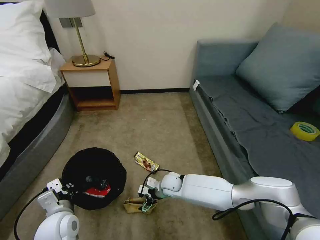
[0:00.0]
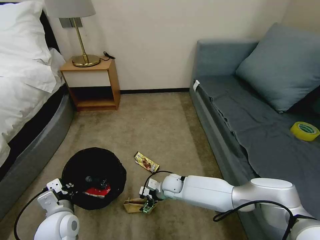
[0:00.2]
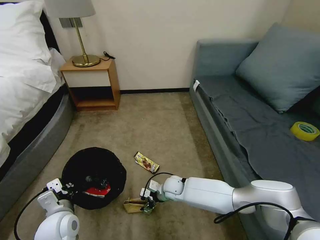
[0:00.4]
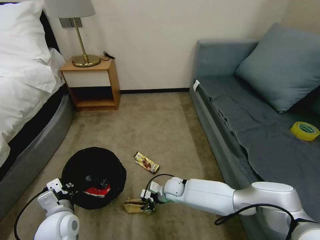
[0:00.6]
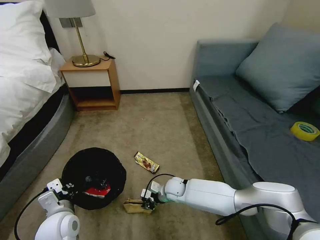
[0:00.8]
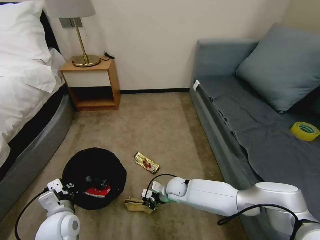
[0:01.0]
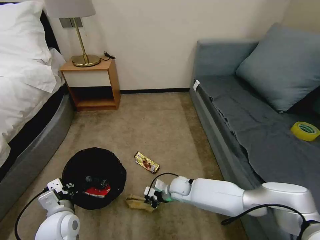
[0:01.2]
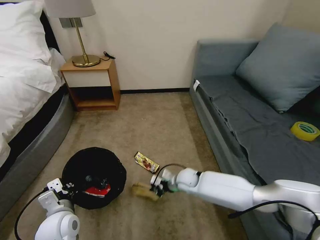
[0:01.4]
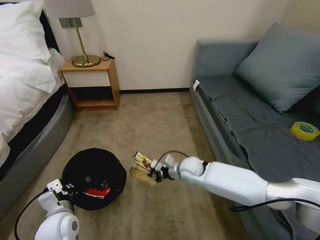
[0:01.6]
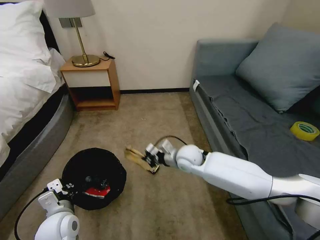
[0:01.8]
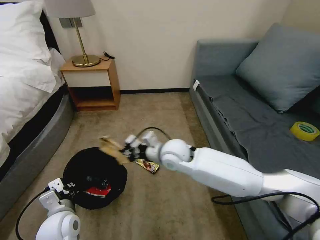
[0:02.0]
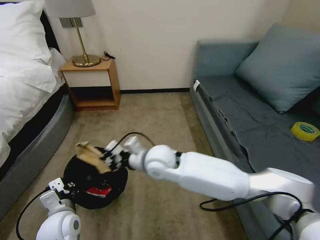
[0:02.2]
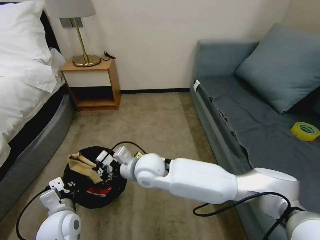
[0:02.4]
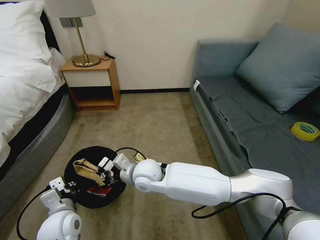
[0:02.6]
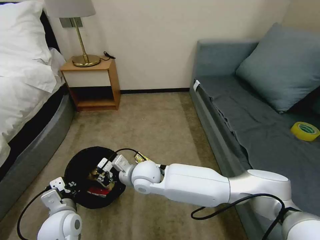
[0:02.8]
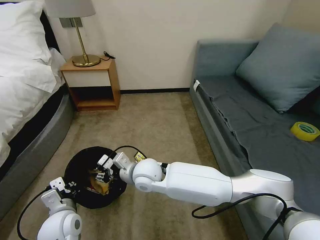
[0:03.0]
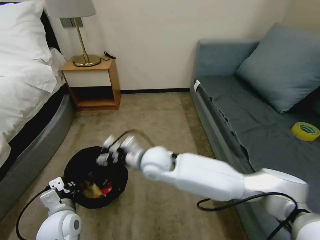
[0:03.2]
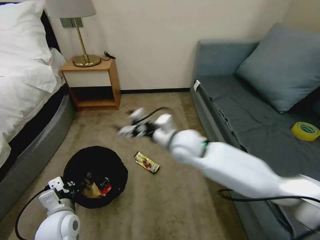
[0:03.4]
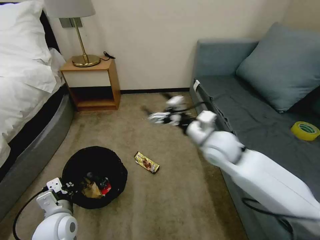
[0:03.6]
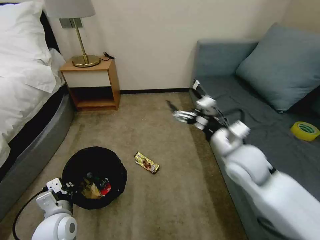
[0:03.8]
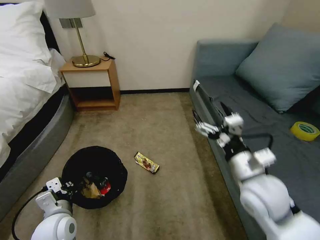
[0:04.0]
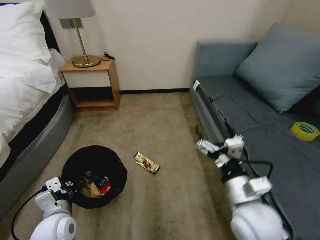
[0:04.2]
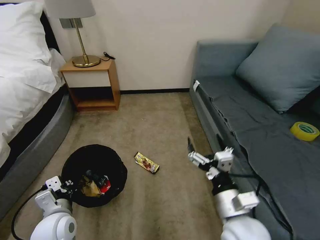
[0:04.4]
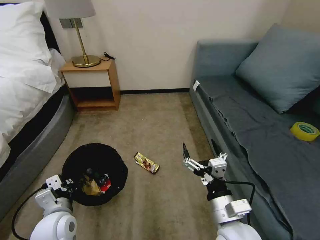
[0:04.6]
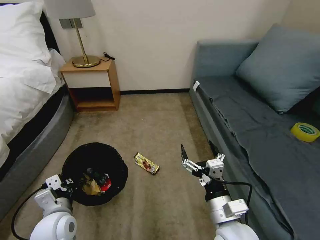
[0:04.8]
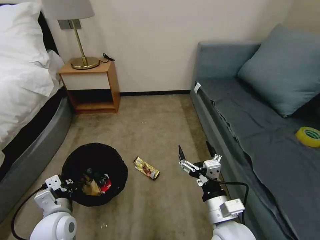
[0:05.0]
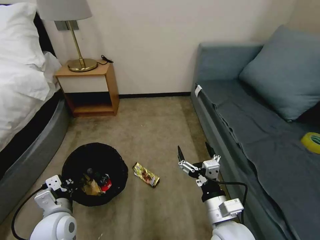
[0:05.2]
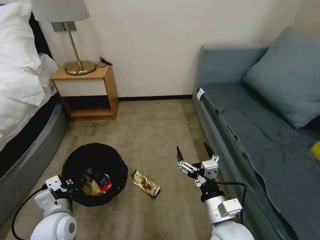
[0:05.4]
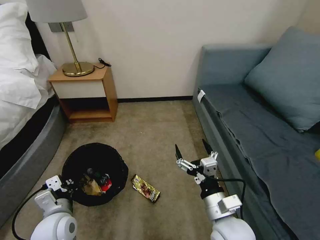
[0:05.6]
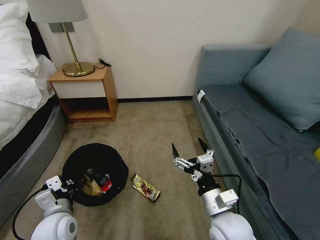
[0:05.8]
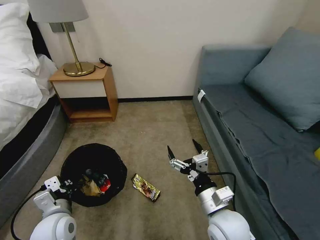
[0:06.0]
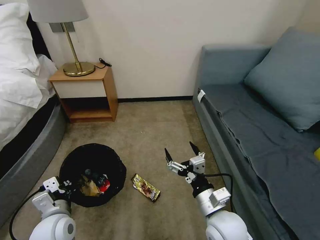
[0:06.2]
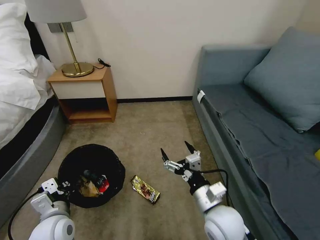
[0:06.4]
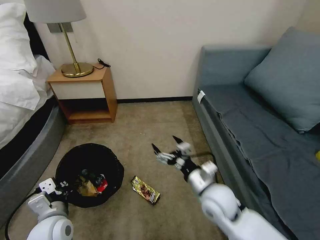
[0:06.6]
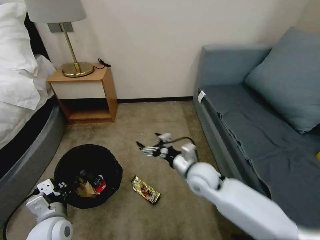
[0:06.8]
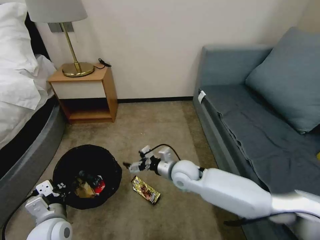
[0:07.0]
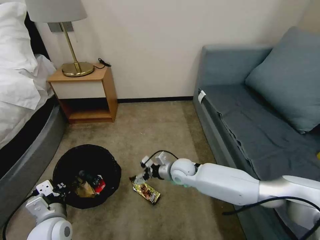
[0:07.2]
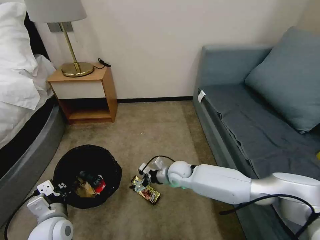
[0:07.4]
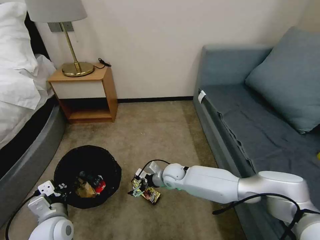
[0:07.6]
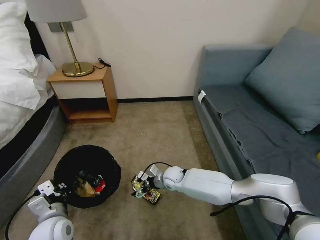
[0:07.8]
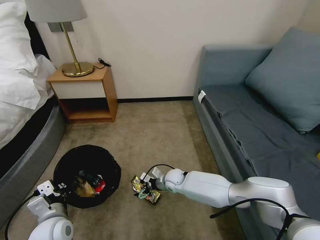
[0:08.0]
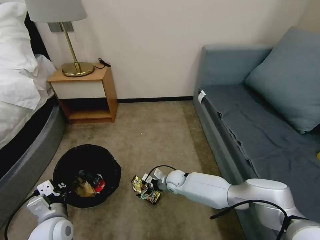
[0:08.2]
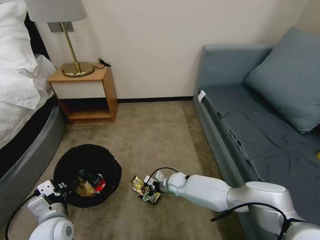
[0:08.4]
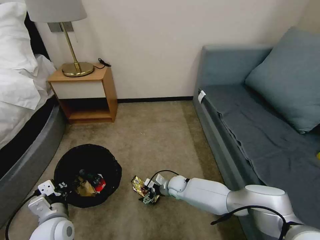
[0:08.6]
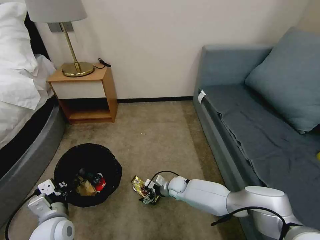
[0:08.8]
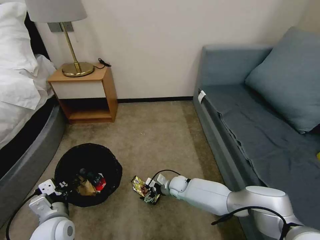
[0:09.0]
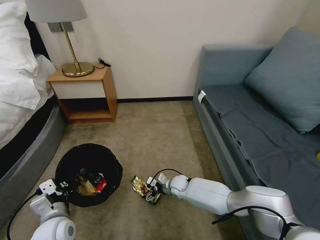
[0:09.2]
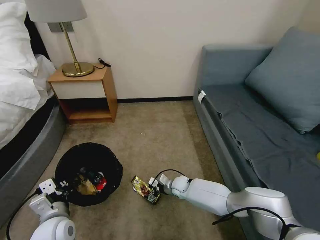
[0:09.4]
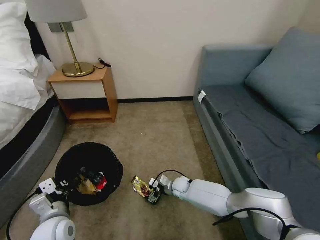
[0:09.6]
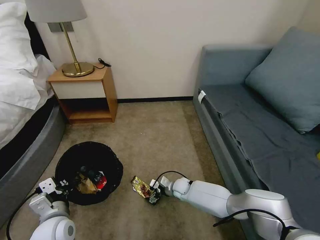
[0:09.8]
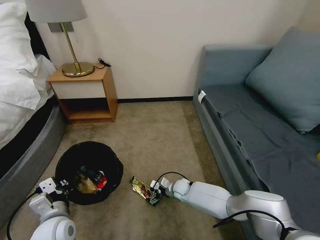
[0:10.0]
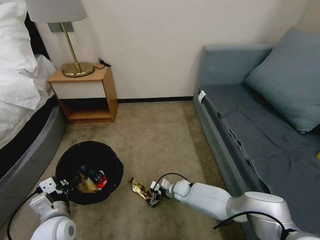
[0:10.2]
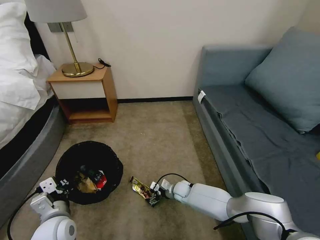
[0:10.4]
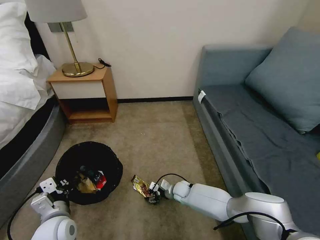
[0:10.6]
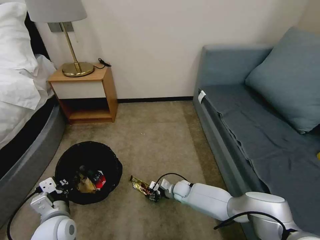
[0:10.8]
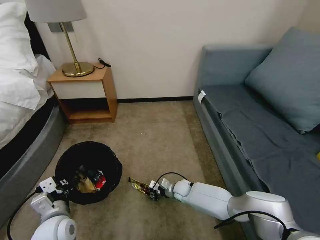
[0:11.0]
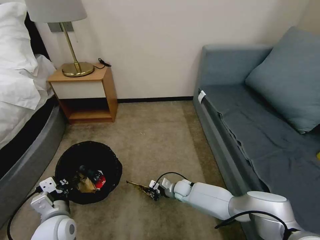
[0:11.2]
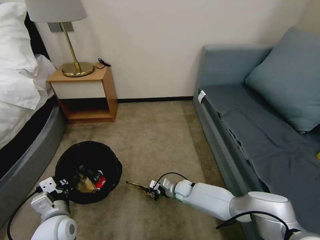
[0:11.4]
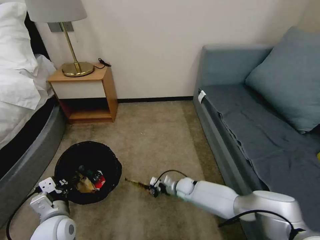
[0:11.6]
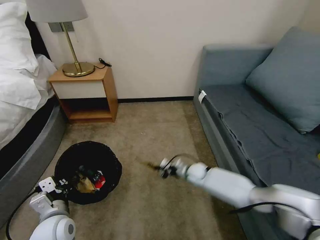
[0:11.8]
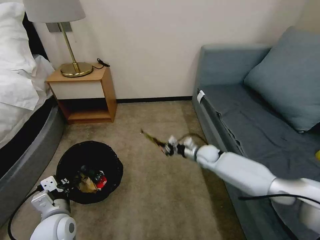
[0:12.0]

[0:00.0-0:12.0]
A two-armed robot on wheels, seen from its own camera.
Task of the whole recording: Pick up the trash bin, then pick up the garbage on the floor and place it into the trash bin.
0:00.0 to 0:01.6: The right gripper goes about 10 cm to the right and upward, and closes.
0:01.6 to 0:03.0: The right gripper moves to the left, upward and backward, roughly 20 cm, and opens its fingers.
0:03.0 to 0:04.4: The right gripper goes about 30 cm to the right and backward, and opens its fingers.
0:06.0 to 0:07.6: The right gripper shifts approximately 30 cm forward, downward and to the left.
0:07.6 to 0:09.0: The right gripper moves downward, some 10 cm.
0:09.0 to 0:10.4: There are only small adjustments of the grippers.
0:10.4 to 0:12.0: The right gripper goes some 20 cm upward, to the right and forward, and closes its fingers.

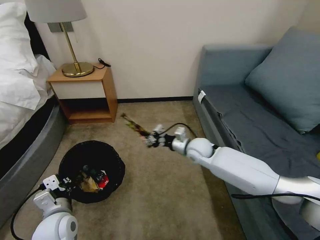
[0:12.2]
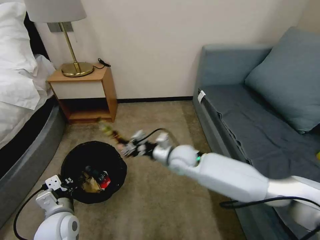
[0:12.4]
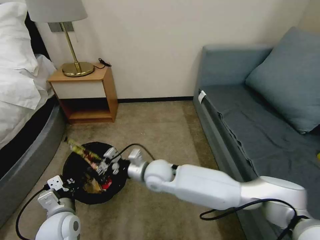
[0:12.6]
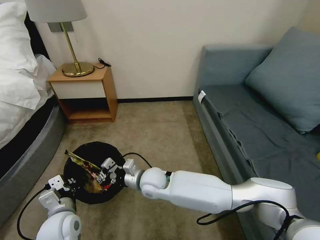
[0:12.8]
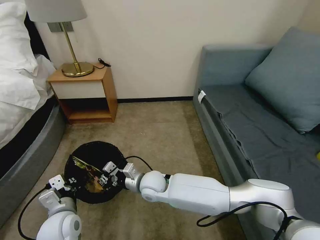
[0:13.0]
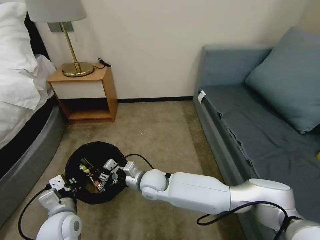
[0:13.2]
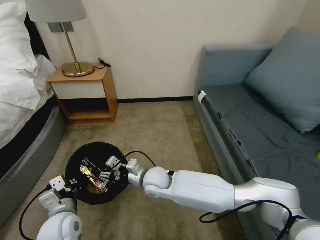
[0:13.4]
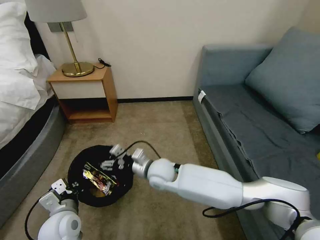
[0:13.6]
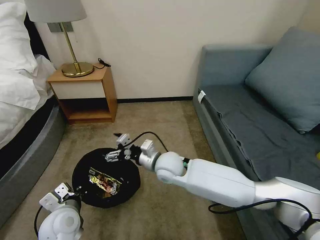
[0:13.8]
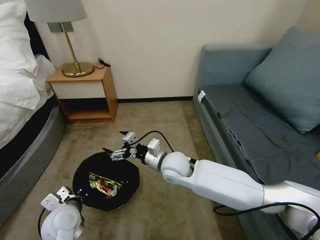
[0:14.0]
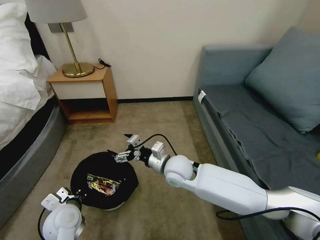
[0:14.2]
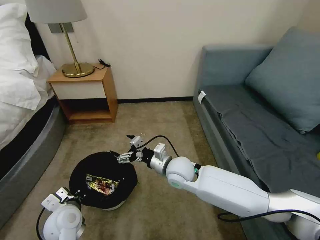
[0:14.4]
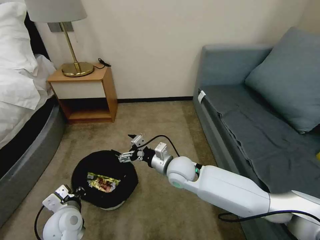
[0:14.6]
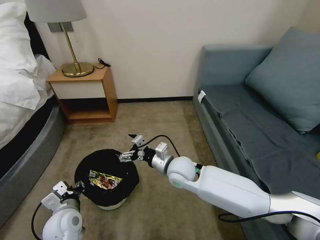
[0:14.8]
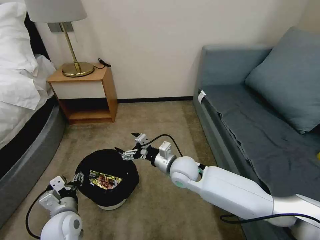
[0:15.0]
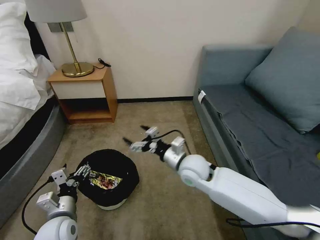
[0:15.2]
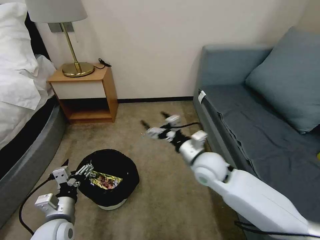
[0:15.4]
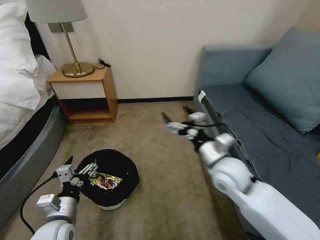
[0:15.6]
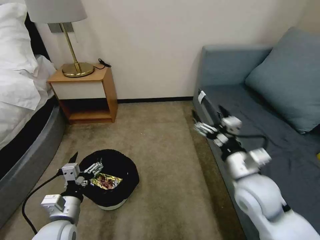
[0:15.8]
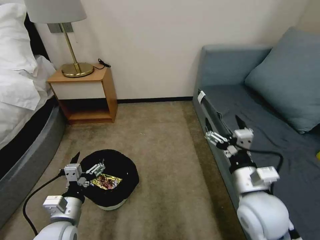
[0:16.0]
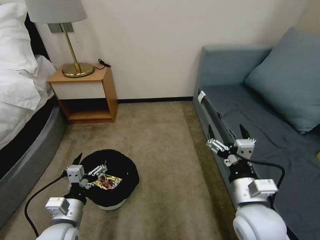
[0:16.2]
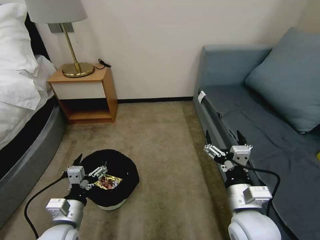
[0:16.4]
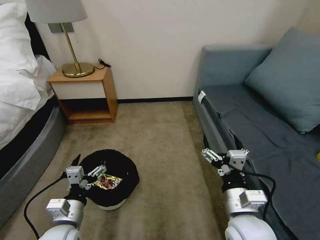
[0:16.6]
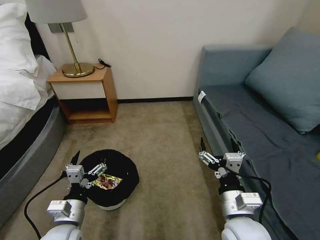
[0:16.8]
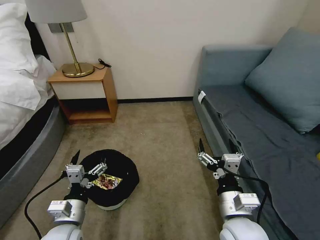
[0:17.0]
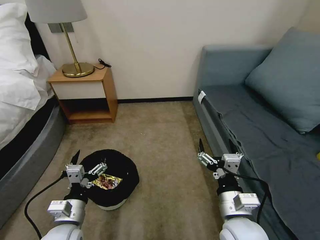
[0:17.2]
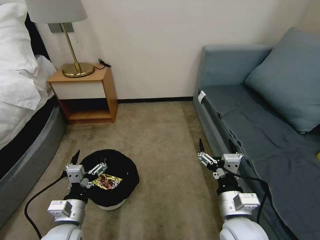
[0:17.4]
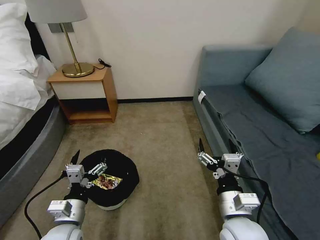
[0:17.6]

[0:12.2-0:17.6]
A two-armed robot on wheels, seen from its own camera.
Task of the whole recording: Pick up the trash bin, then pick up the garbage on the floor and place it into the trash bin.
0:12.2 to 0:13.6: The right gripper heads to the left and backward, covering some 20 cm, and opens its fingers.
0:13.6 to 0:15.0: The left gripper opens up. Meanwhile the right gripper shifts roughly 5 cm to the right.
0:15.0 to 0:16.2: The left gripper shifts by approximately 5 cm. Meanwhile the right gripper moves backward and to the right, roughly 20 cm.
0:16.2 to 0:17.6: The grippers stay close to where they were, moving slightly.

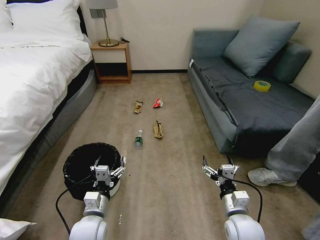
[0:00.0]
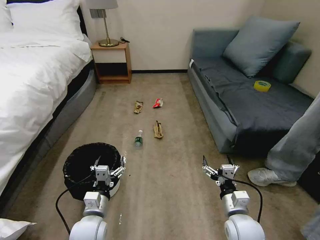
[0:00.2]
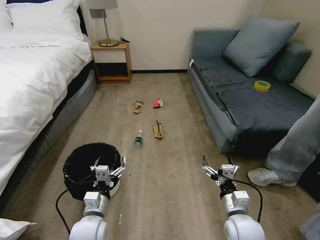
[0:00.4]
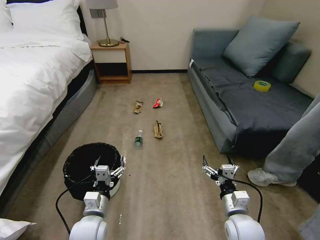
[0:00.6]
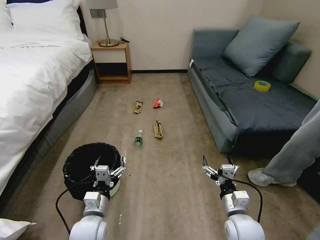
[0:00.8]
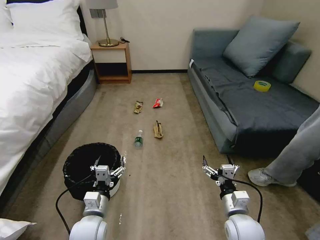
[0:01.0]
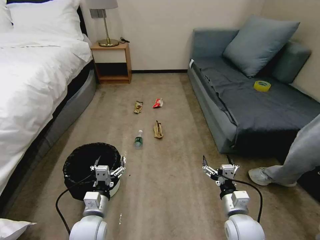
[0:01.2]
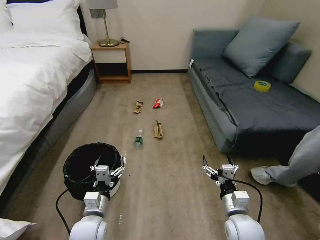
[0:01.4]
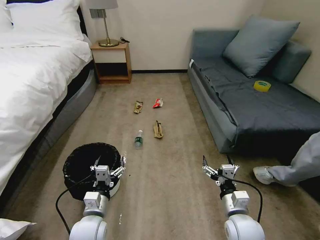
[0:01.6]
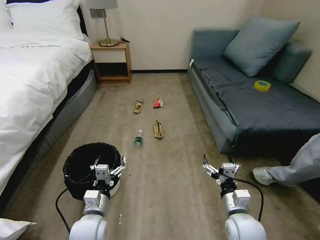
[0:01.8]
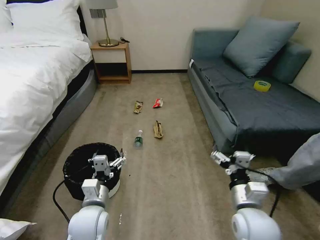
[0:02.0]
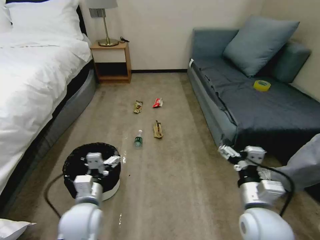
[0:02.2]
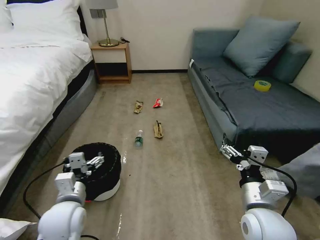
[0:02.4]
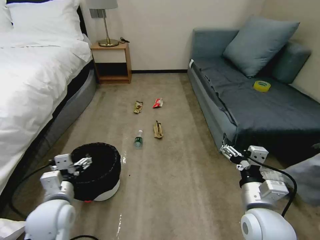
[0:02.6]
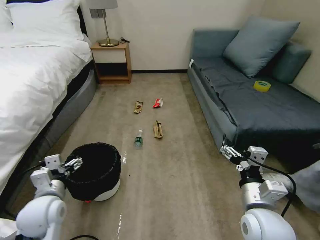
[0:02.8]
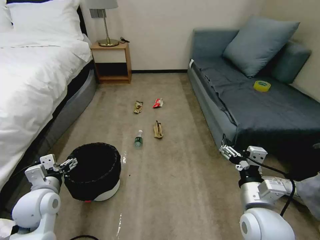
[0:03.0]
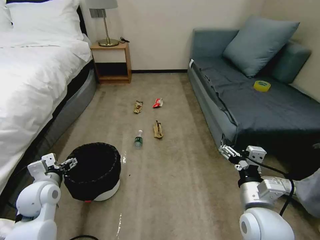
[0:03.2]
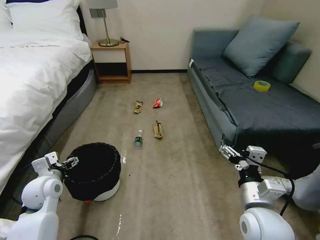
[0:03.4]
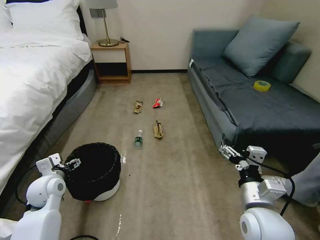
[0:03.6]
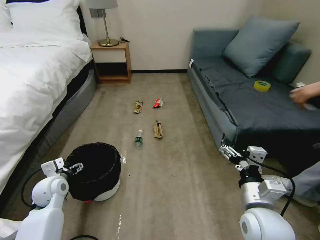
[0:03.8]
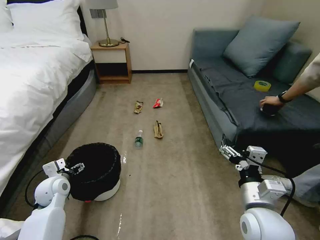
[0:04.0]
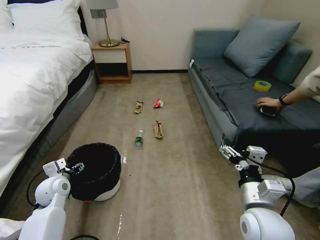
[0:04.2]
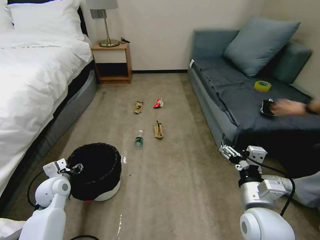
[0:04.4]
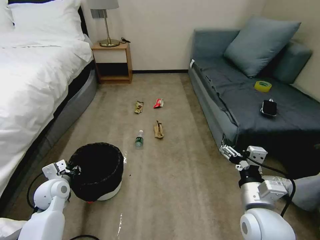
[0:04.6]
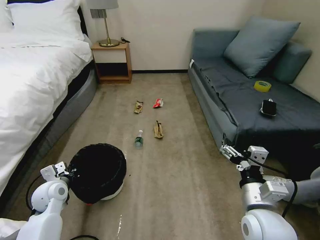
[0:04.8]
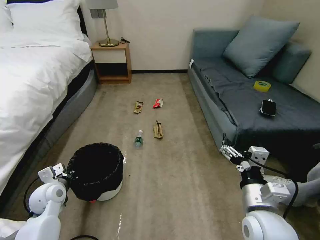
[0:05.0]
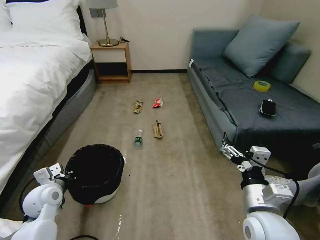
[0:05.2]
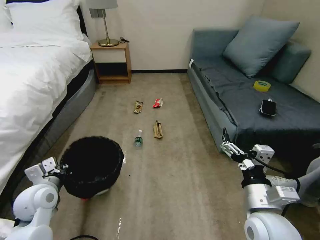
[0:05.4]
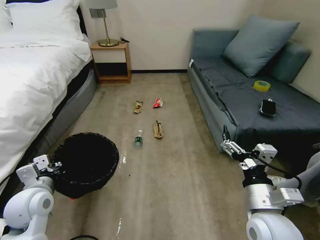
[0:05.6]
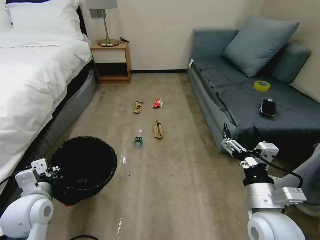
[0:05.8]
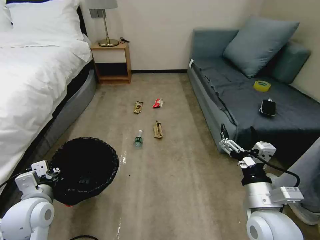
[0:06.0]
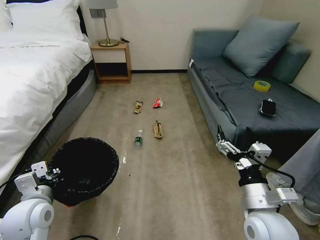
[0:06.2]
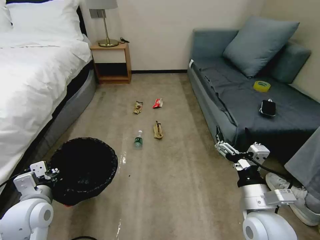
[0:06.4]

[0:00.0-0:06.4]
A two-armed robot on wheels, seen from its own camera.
Task of the whole recording: Pick up the trash bin, then pick up the garbage on the floor and place it into the trash bin.
0:01.6 to 0:03.2: The left gripper travels to the left, upward and forward by roughly 20 cm; the right gripper goes roughly 10 cm upward.
0:03.2 to 0:04.8: The left gripper moves downward, roughly 5 cm, and closes its fingers.
0:04.8 to 0:06.4: The left gripper heads backward and upward, covering some 15 cm.
